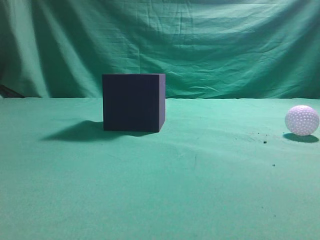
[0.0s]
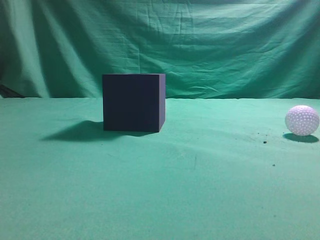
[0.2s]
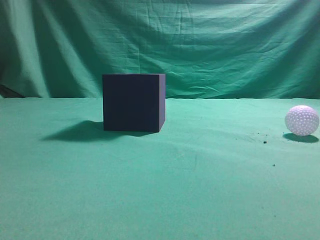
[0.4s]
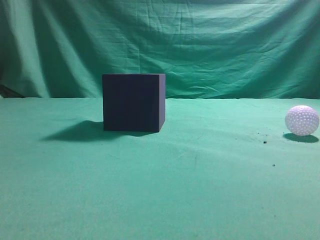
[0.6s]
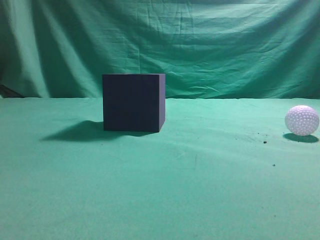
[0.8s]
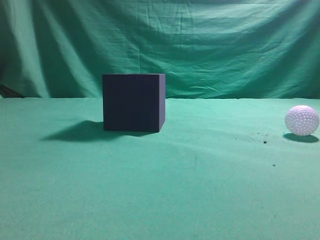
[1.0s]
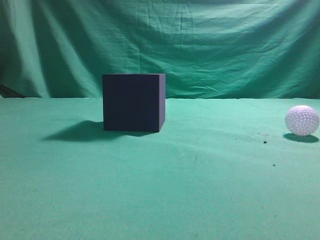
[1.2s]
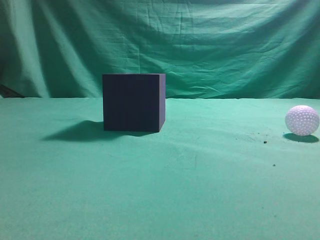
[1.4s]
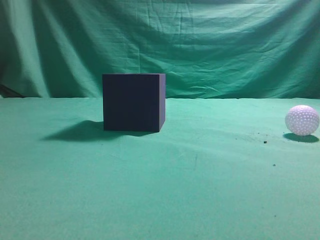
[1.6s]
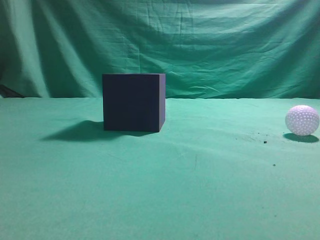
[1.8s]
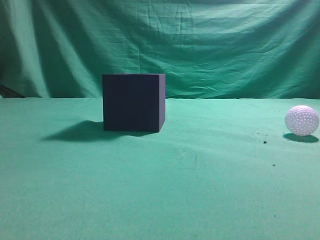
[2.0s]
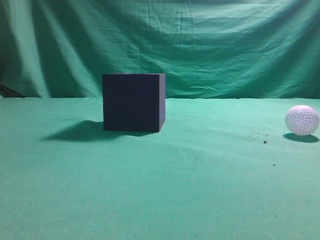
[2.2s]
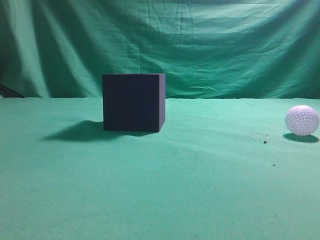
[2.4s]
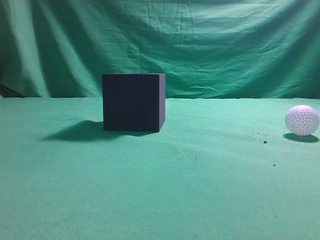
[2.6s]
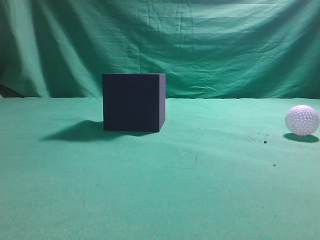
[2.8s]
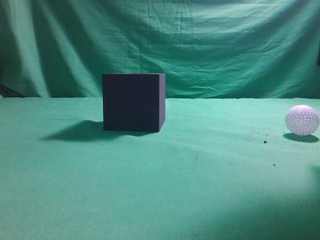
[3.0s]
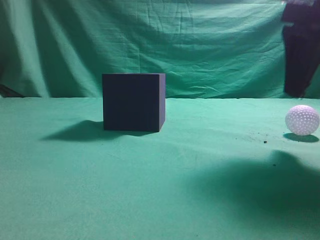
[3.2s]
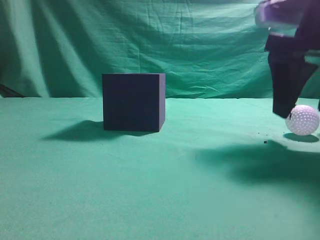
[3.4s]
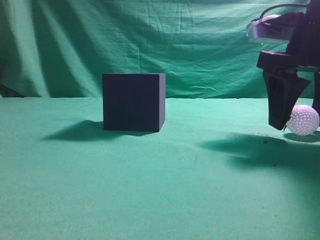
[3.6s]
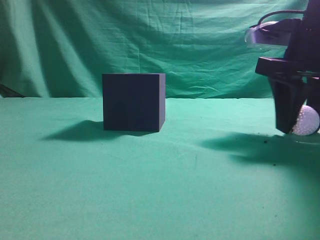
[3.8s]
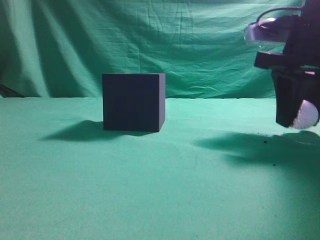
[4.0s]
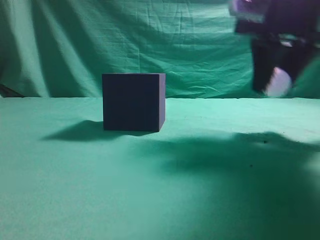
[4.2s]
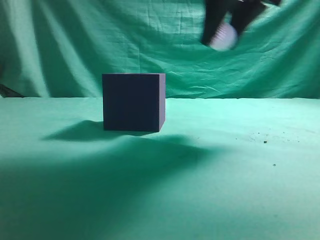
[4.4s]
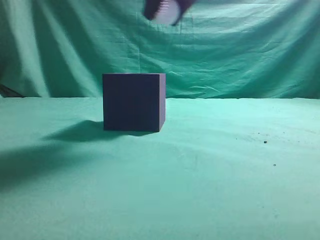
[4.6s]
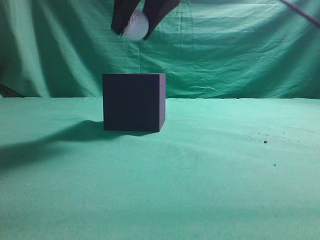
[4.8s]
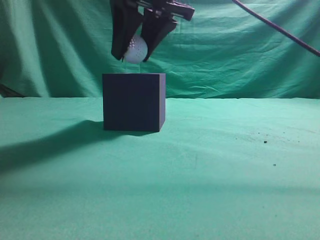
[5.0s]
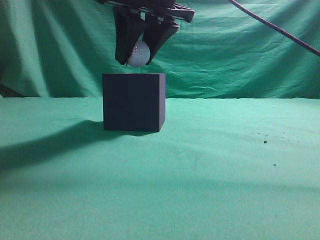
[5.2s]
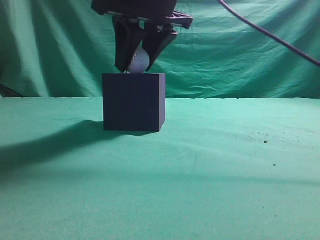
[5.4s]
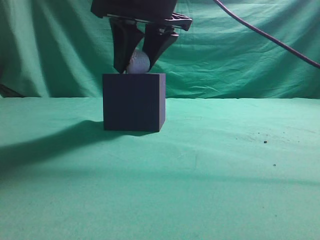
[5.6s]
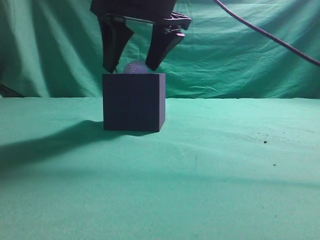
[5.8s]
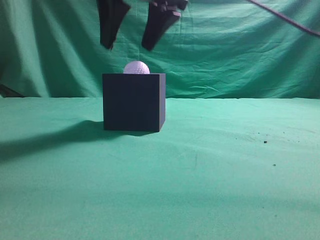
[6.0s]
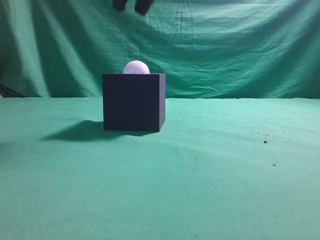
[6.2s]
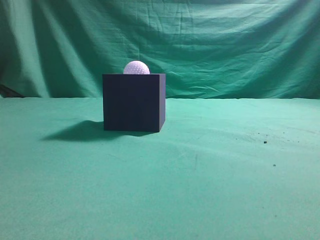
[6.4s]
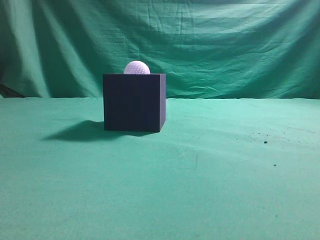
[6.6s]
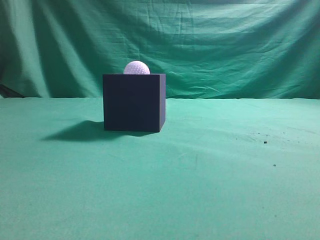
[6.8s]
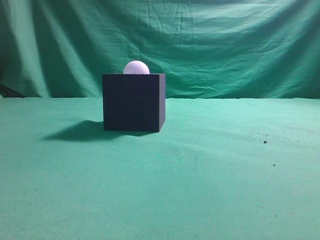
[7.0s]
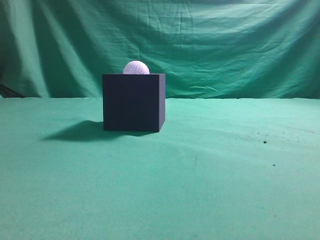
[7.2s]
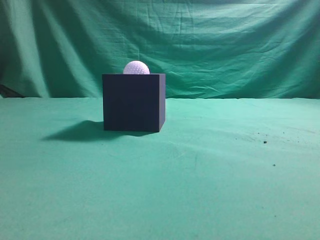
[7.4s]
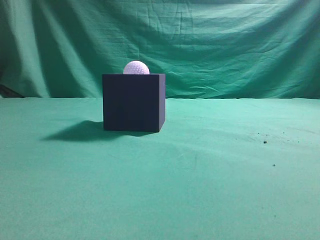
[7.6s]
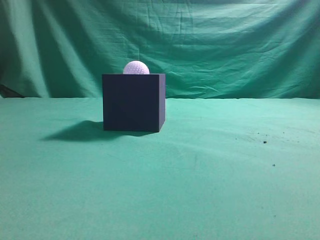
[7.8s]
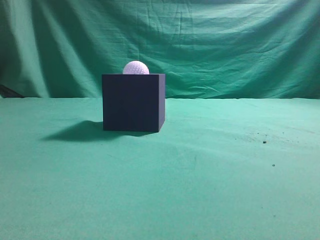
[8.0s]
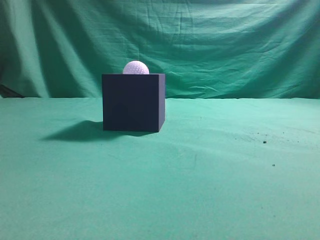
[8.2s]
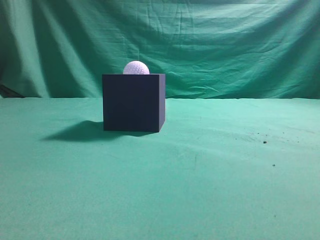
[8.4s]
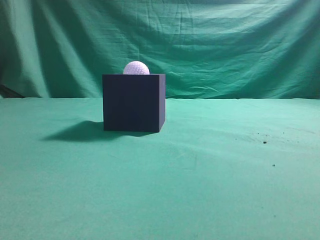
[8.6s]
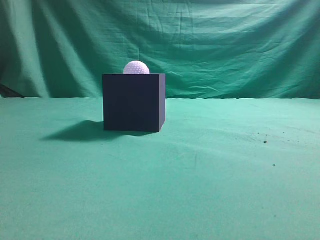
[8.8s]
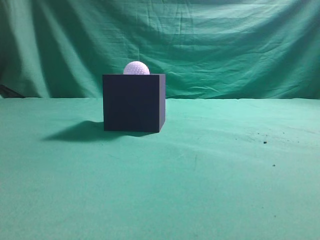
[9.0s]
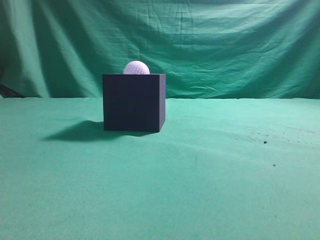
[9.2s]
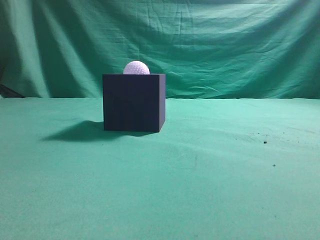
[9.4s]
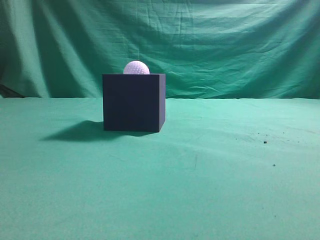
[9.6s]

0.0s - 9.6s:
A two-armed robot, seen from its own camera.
Task of the whole recording: Pick up the ball and place it in the circular groove above the cube.
Step, 0.0s - 3.4s: Grasp the sphere on the table.
Step, 3.6s - 5.0s: Place the sphere into the sphere-shaped recess.
1.6s - 3.2s: The right gripper heads forward and to the left, covering some 25 cm, and opens its fingers.
3.2s - 4.8s: The right gripper is displaced to the left by roughly 20 cm, and closes.
4.8s - 6.4s: The right gripper heads upward, covering about 10 cm, and closes.

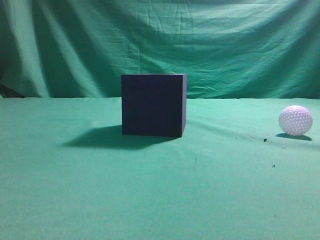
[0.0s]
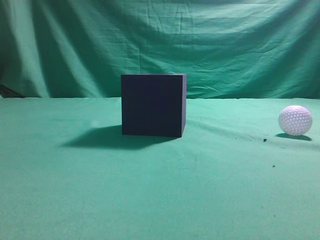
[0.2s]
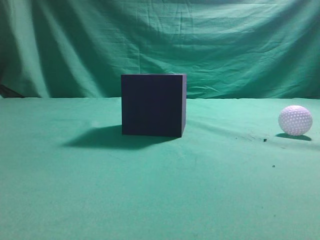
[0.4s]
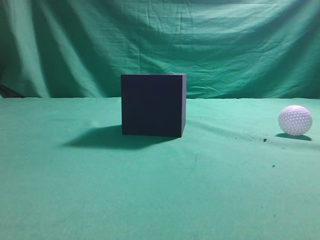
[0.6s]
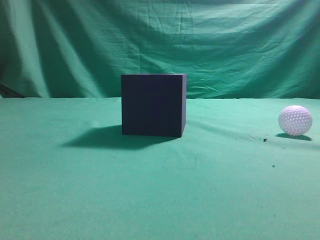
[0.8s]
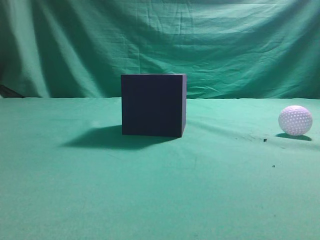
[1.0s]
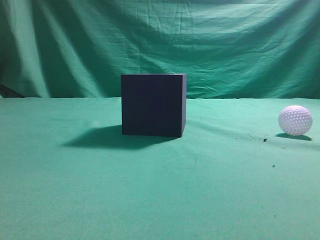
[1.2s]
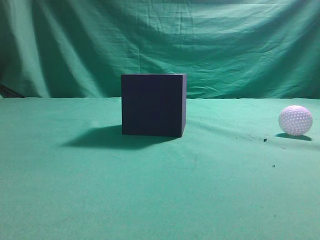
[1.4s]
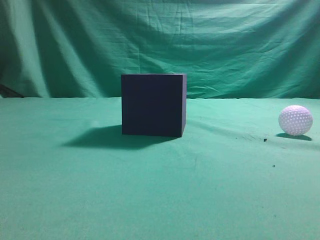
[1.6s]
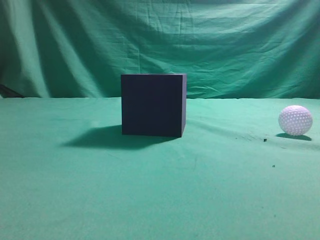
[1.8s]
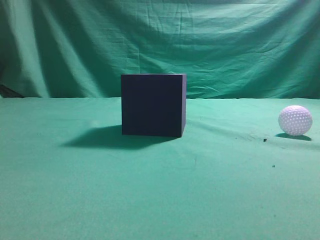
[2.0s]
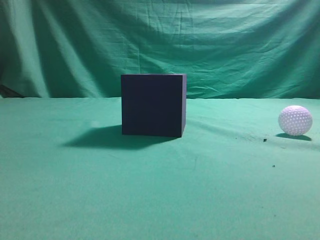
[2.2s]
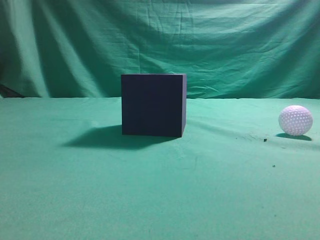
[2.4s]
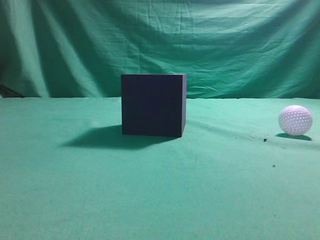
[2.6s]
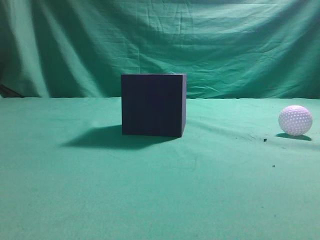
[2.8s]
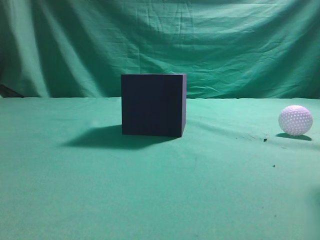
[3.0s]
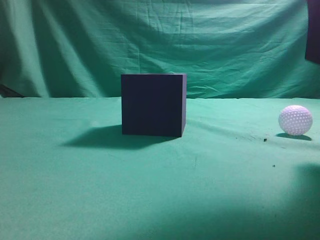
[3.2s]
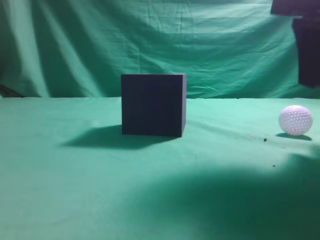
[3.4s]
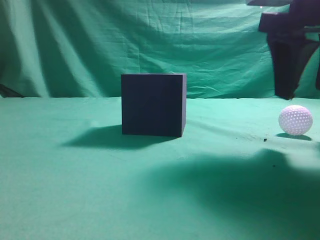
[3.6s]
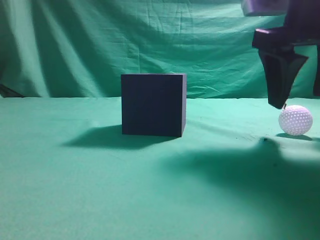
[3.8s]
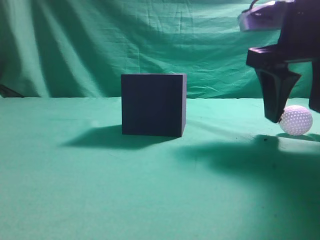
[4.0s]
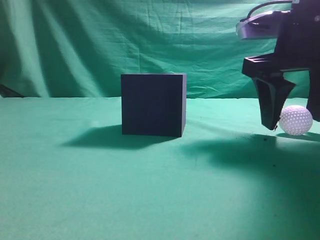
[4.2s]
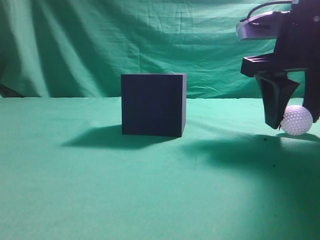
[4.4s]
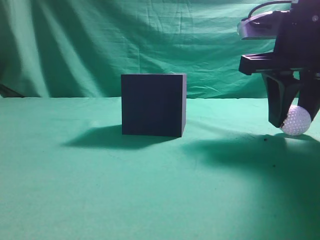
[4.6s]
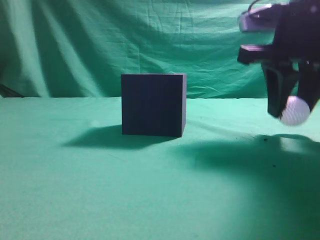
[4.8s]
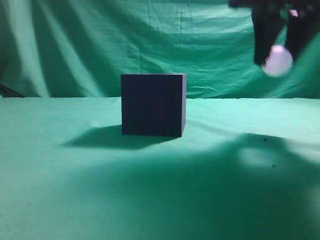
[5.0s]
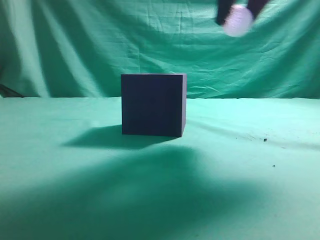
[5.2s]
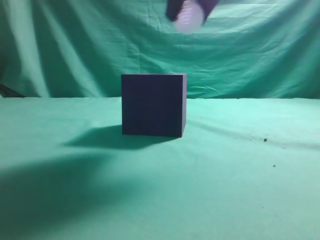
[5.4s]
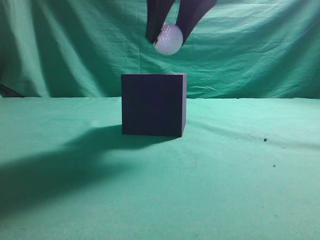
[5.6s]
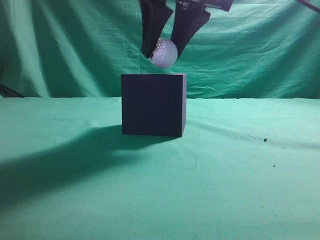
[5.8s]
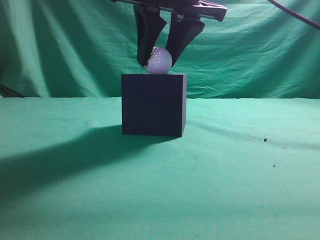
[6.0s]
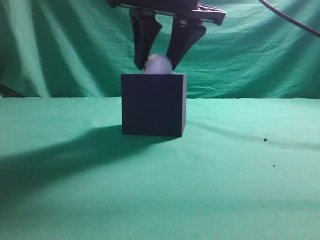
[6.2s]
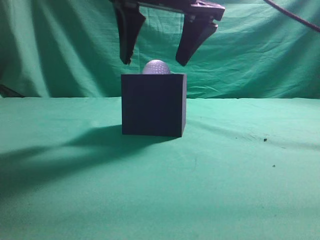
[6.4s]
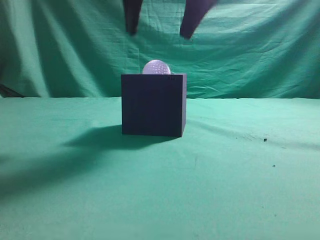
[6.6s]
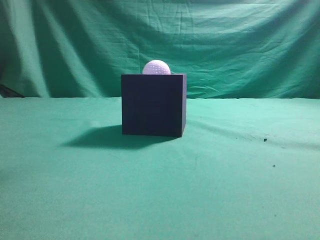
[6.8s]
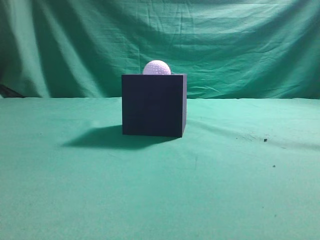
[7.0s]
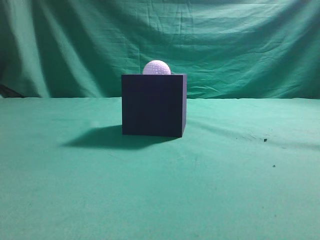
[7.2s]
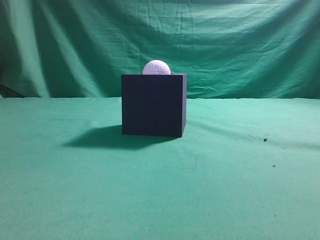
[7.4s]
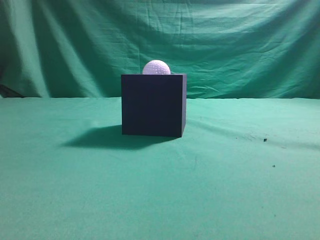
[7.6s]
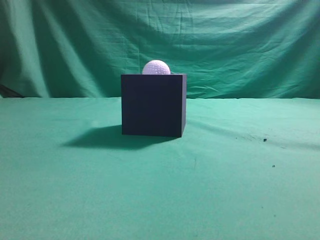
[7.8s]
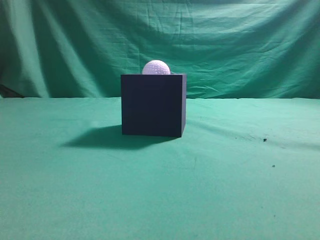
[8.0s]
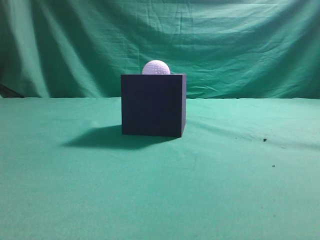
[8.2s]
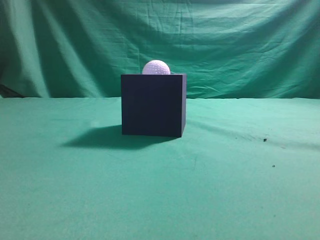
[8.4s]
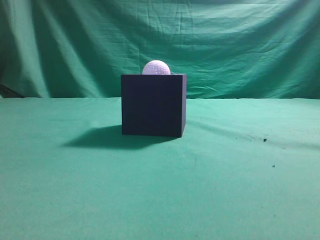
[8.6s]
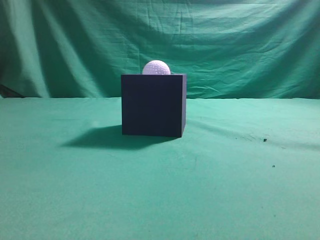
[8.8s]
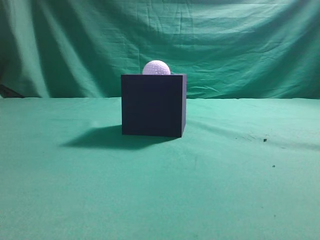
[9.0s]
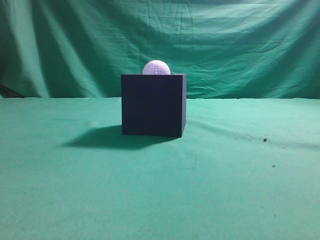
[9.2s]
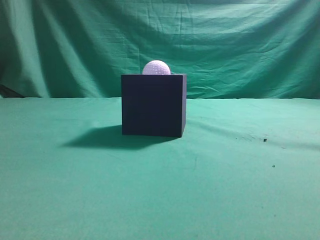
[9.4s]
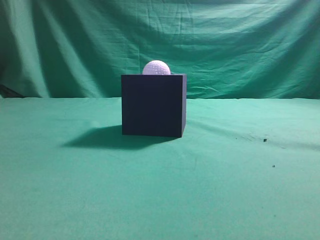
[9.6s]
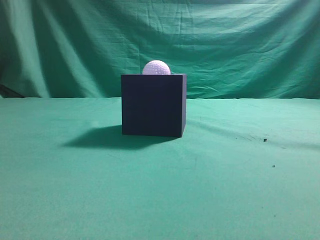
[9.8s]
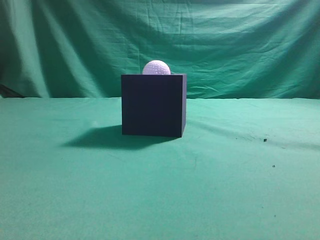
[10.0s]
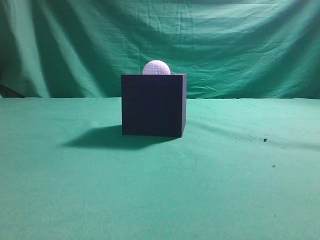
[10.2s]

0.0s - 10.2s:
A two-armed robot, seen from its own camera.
Task of the whole recording: Pick up the ball and place it in the circular groove above the cube.
Step, 0.0s - 4.8s: Grasp the sphere on the table.
Step, 5.0s - 6.4s: Place the sphere into the sphere-shaped recess.
3.0s - 4.4s: The right gripper heads forward and downward, covering some 15 cm, and opens up.
4.4s - 5.8s: The right gripper is displaced to the left and upward by roughly 15 cm.
5.8s - 7.2s: The right gripper heads upward and backward, covering some 15 cm, and closes its fingers.

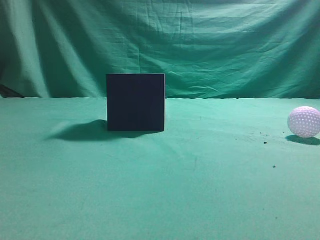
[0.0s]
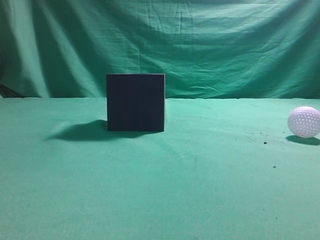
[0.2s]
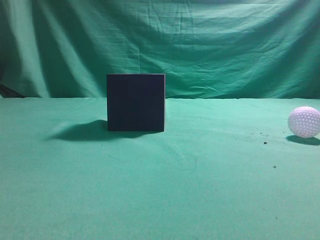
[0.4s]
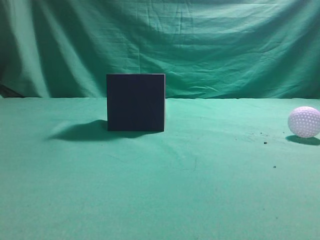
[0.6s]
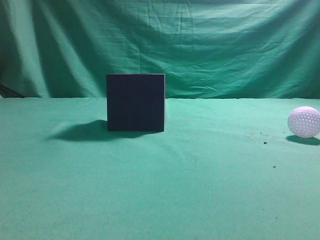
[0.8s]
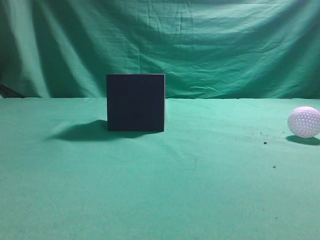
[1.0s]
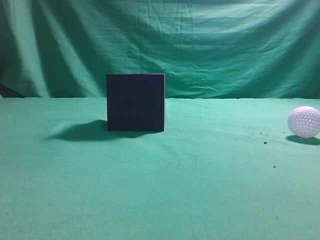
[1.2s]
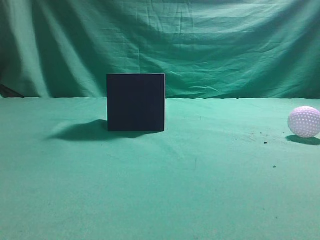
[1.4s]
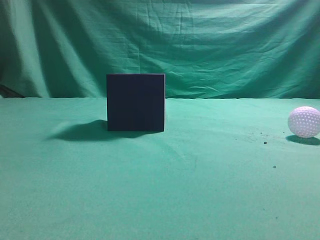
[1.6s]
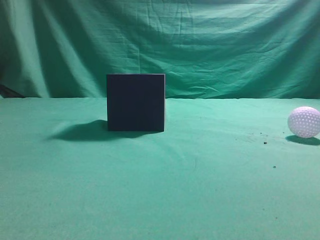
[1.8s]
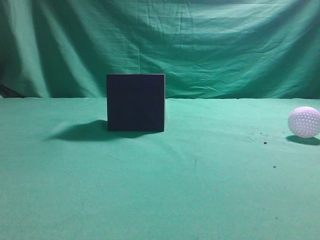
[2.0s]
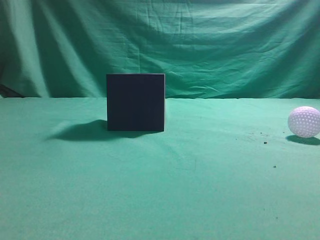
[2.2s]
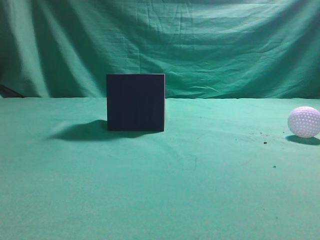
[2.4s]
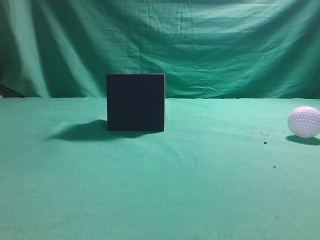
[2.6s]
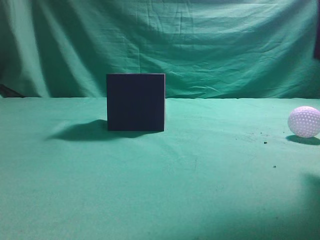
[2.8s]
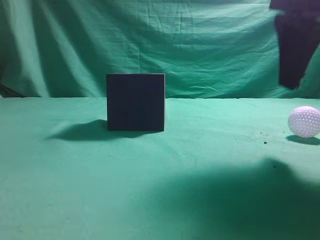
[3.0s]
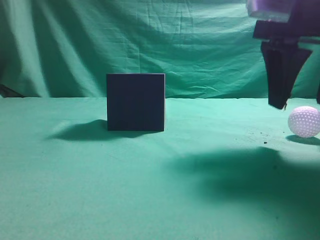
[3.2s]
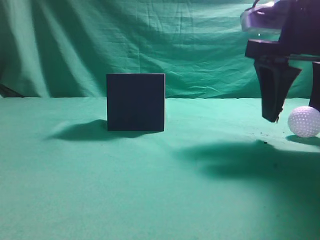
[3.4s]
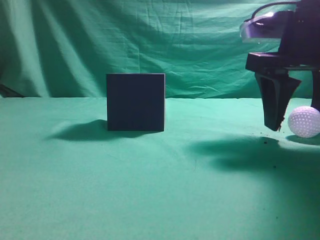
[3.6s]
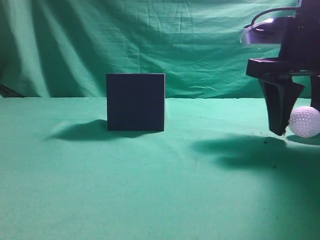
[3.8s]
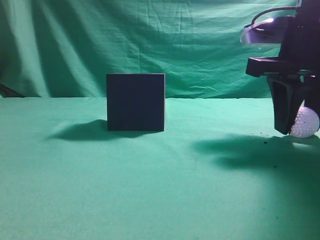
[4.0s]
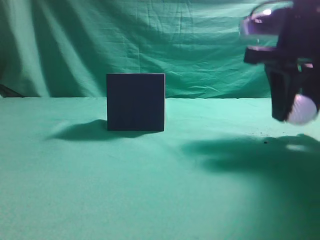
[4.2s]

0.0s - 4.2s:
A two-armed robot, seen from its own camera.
Task of the whole recording: Pick up the ball and place it in the circular groove above the cube.
Step, 0.0s - 4.2s: Grasp the sphere on the table.
1.4s - 2.8s: The right gripper heads forward and to the left, covering approximately 20 cm.
2.8s - 4.2s: The right gripper moves forward and downward, approximately 10 cm, and opens, then closes again.
